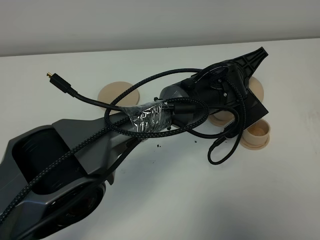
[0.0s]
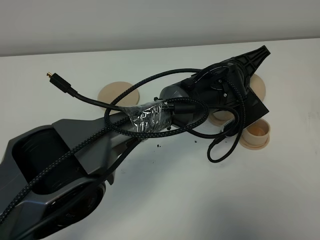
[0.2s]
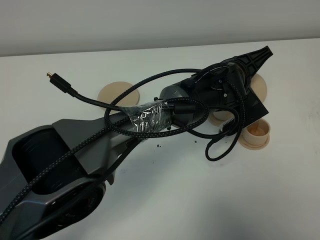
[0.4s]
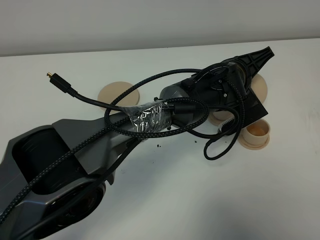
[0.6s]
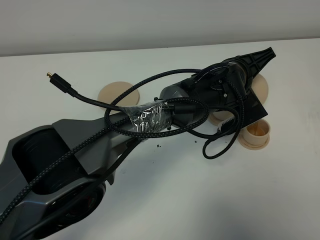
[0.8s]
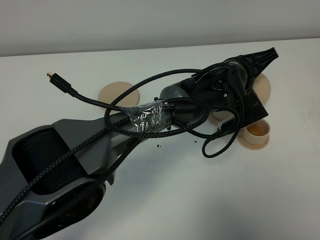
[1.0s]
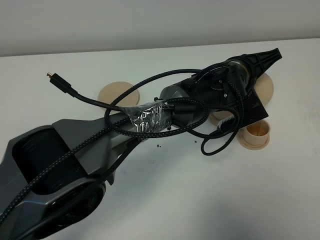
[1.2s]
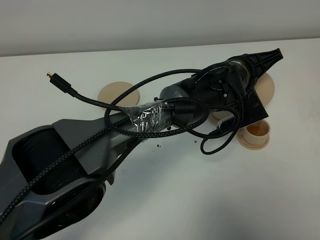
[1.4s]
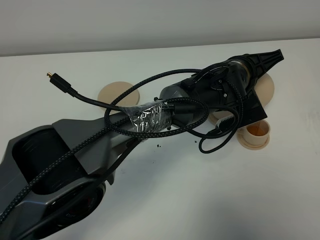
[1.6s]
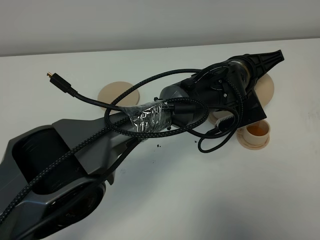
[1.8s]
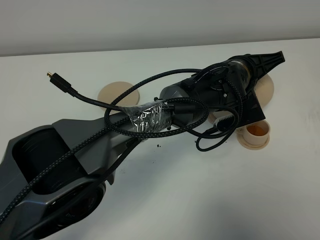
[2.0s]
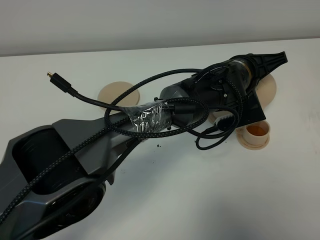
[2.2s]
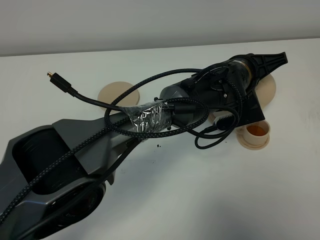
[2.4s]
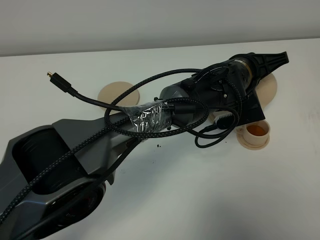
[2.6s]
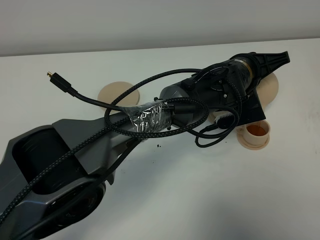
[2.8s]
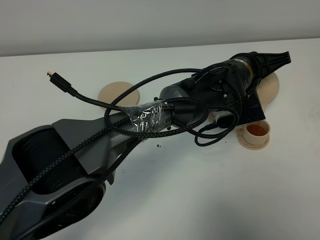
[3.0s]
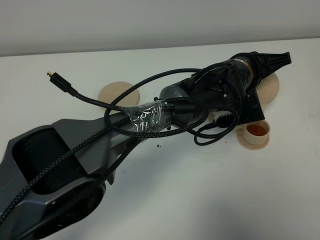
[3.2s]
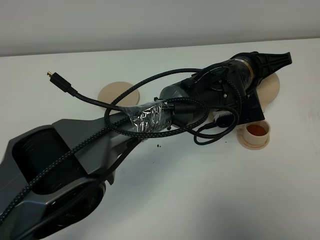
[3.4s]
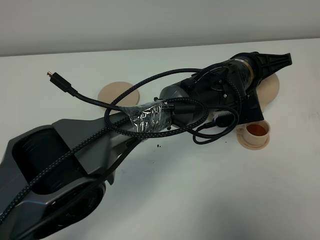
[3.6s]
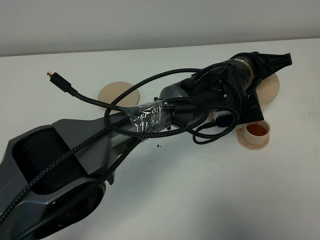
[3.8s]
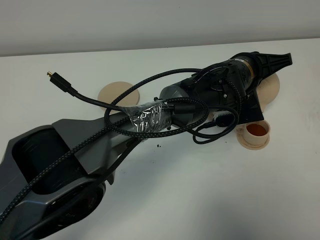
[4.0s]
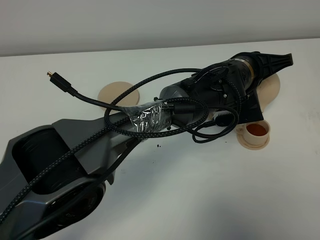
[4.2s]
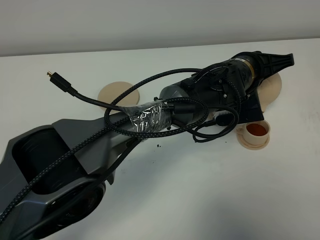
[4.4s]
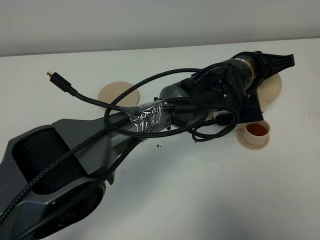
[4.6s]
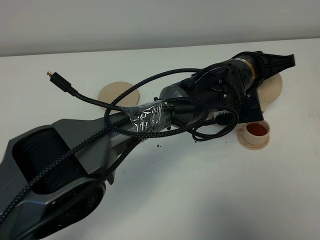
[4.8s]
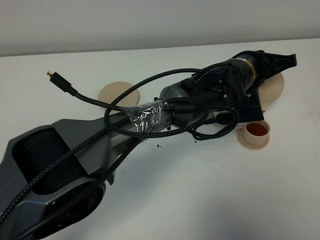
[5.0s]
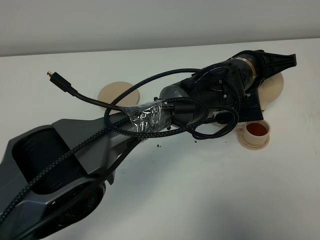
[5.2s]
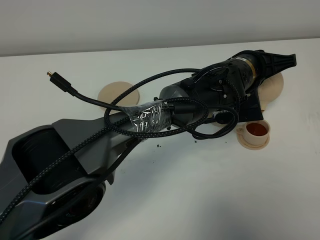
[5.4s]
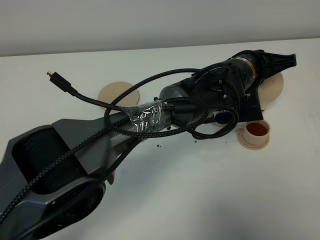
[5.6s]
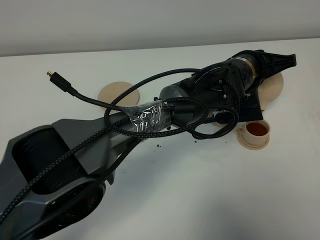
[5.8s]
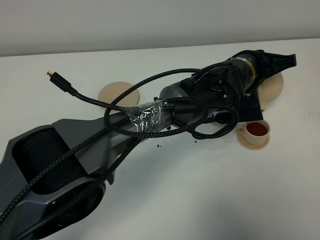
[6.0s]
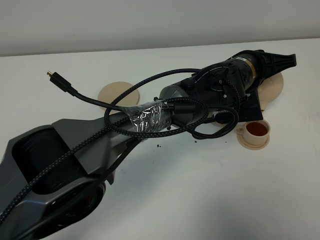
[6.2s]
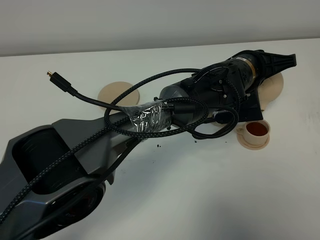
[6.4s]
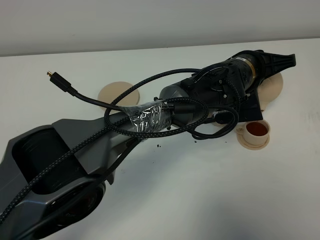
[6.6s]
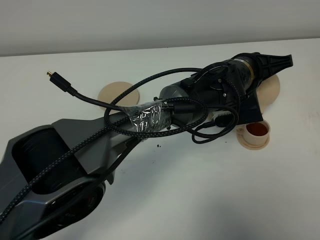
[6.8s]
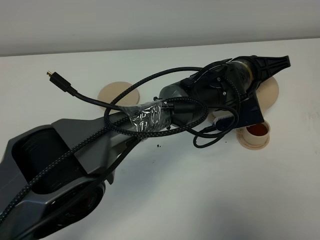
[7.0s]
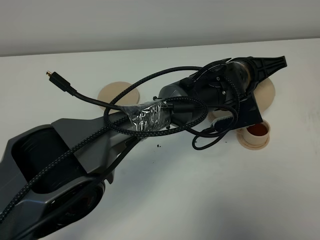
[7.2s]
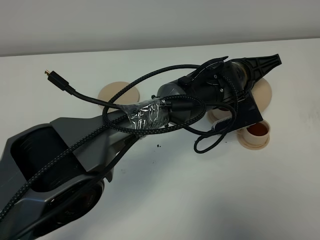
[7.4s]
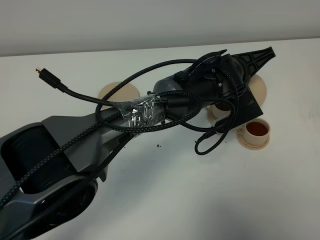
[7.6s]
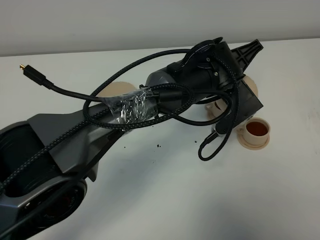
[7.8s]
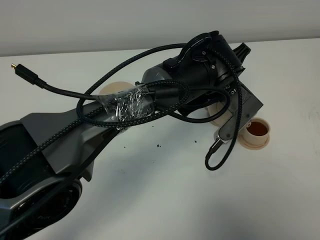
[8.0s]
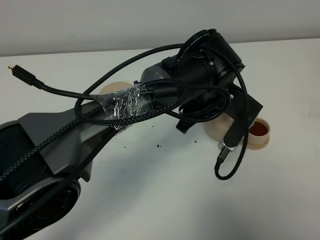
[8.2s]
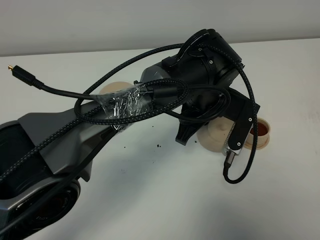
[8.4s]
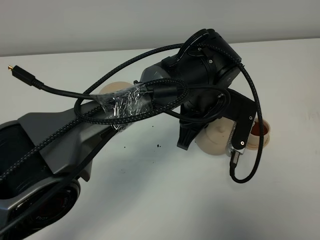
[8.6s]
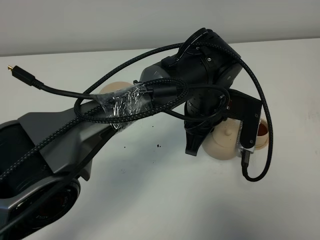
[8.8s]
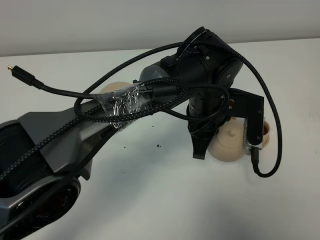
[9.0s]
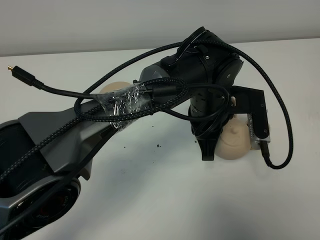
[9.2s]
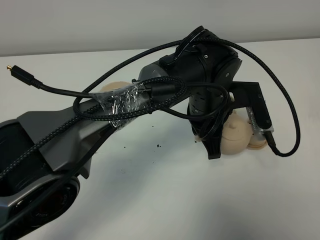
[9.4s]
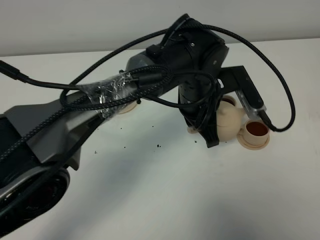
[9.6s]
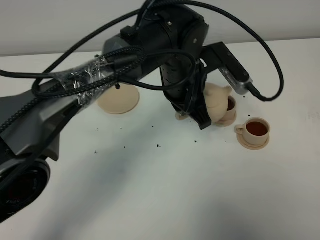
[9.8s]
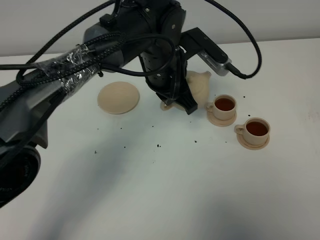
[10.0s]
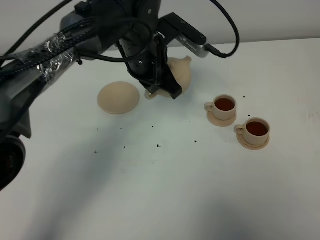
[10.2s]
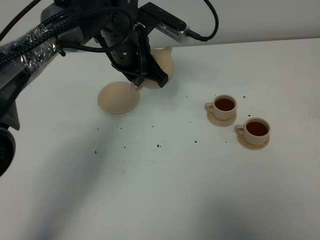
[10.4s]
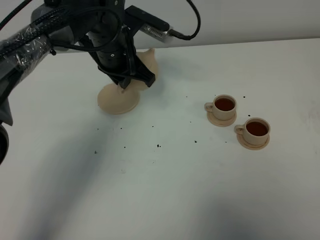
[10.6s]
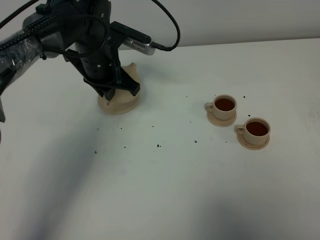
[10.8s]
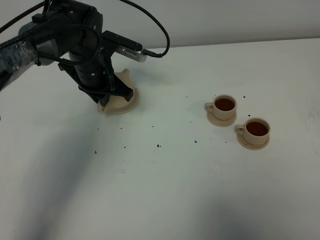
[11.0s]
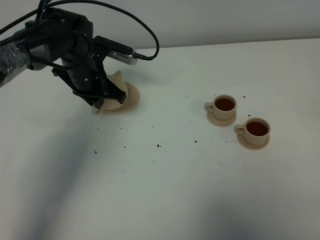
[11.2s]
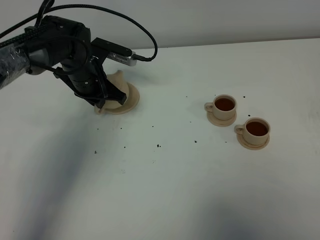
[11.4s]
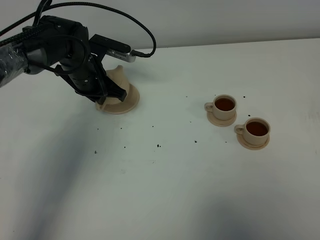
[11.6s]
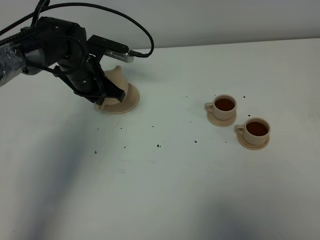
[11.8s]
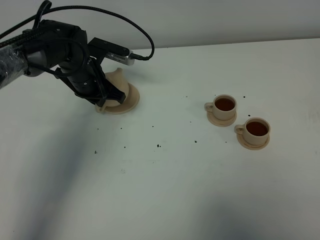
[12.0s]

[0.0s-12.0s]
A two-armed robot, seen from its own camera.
Task of the whole recording: grasp the brown teapot and pour the tea into the two brown teacups one by one, put the brown teapot back in its original place.
Step, 0.0s to 8.0s: Pour tea into the teacup with the left gripper.
0.0s to 1.6s: There are only small adjustments of the grippers.
1.6s to 3.0s: The grippers make only small movements.
3.0s to 4.4s: Both grippers stay put.
4.4s to 6.0s: The two grippers keep their place.
7.6s to 9.0s: The left gripper shifts by about 5 cm.
9.0s to 10.4s: The left gripper shifts some 20 cm to the left, forward and upward.
10.4s to 12.0s: The left gripper shifts some 15 cm downward and to the left.

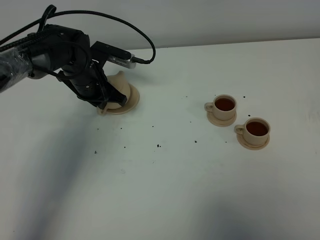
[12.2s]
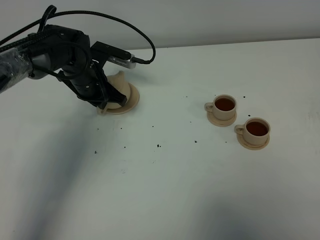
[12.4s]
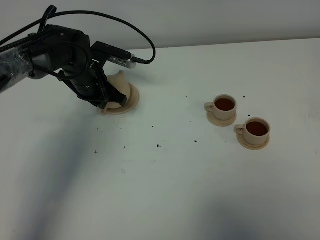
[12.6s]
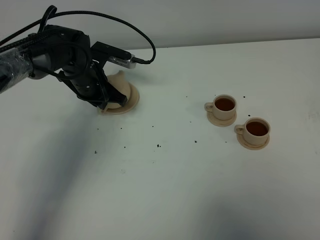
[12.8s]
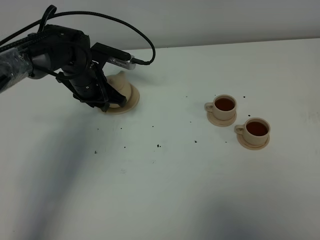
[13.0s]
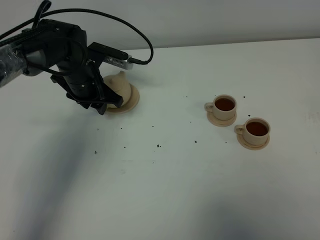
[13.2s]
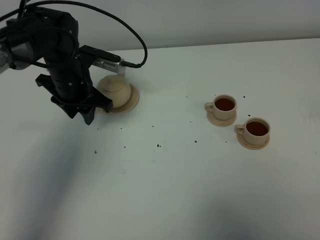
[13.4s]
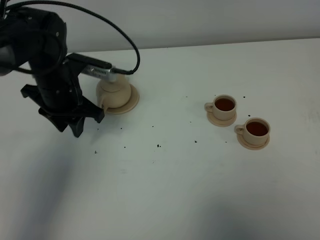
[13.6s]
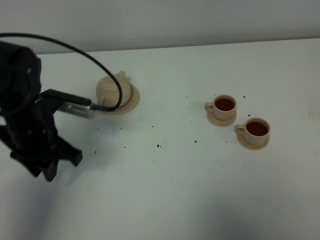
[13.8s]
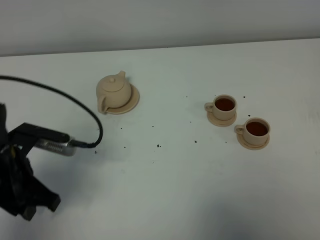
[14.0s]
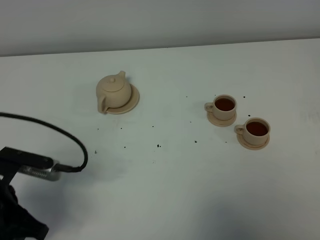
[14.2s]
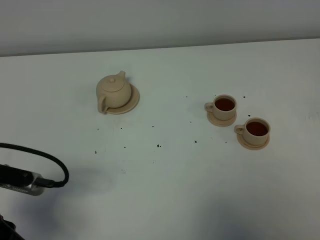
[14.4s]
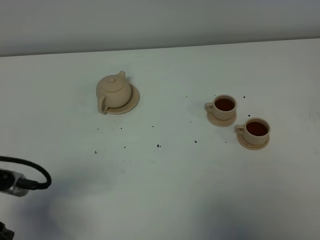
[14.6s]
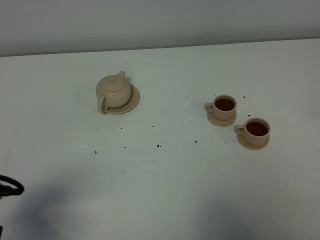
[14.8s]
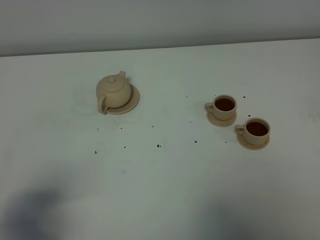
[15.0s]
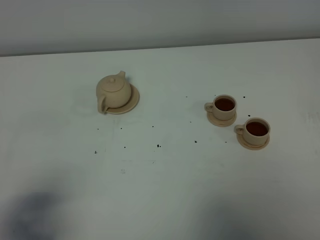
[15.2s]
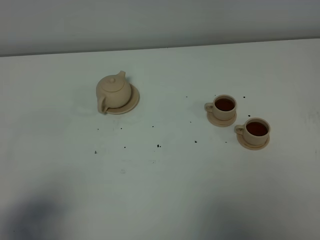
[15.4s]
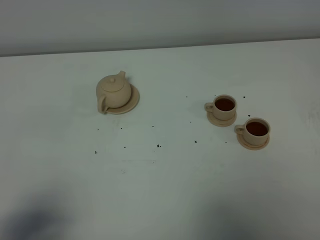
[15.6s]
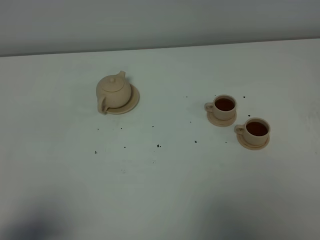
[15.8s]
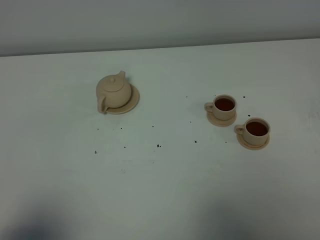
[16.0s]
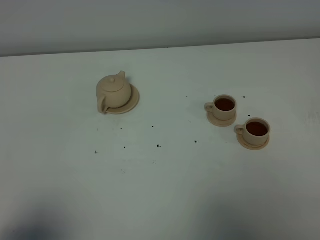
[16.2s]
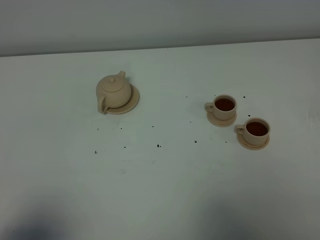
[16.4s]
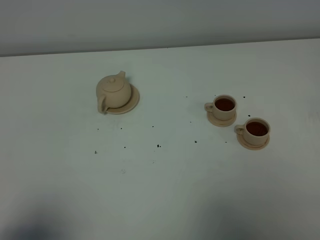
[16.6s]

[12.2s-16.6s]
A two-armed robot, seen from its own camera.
Task of the whole recording: grasp the brown teapot and pour the tea into the two brown teacups one by one, put the brown teapot back in its original place.
12.2s to 13.6s: The left gripper shifts approximately 10 cm backward and upward, and opens.
13.6s to 15.2s: The left gripper travels backward by approximately 30 cm, and closes.
15.2s to 16.6s: The left gripper heads backward, covering about 5 cm.

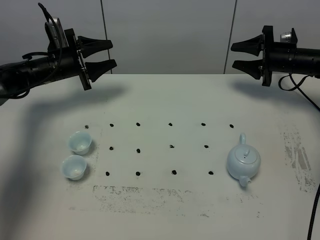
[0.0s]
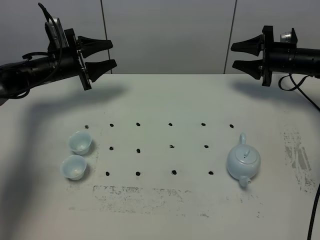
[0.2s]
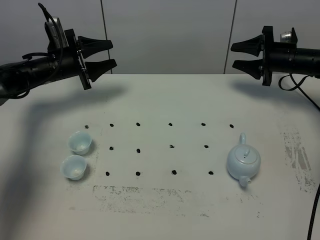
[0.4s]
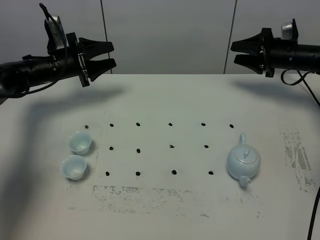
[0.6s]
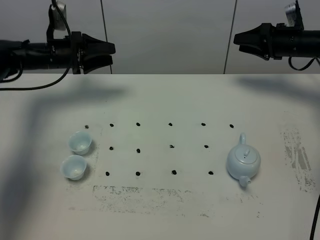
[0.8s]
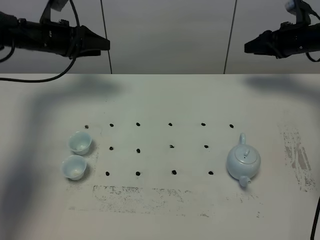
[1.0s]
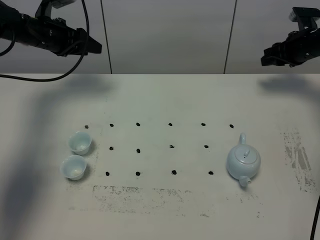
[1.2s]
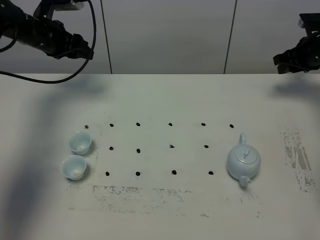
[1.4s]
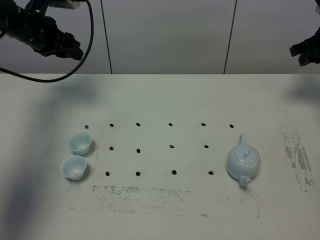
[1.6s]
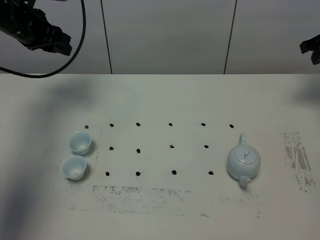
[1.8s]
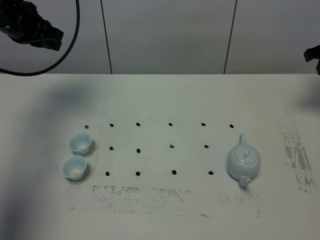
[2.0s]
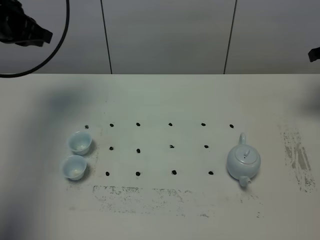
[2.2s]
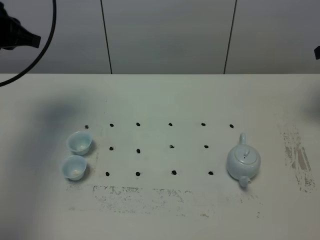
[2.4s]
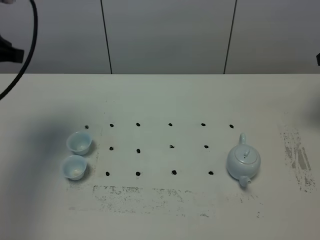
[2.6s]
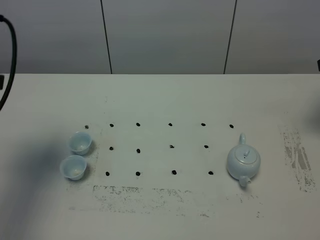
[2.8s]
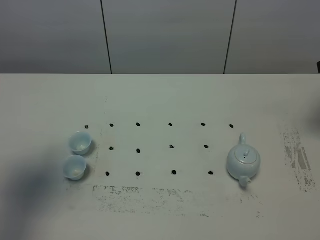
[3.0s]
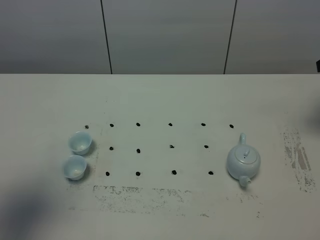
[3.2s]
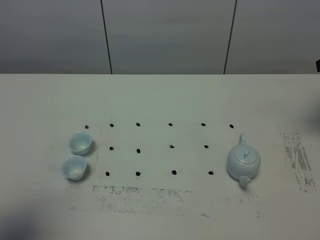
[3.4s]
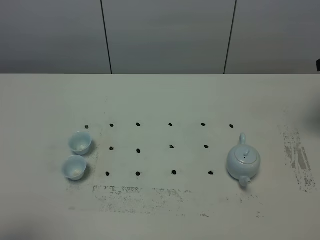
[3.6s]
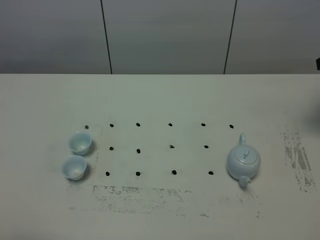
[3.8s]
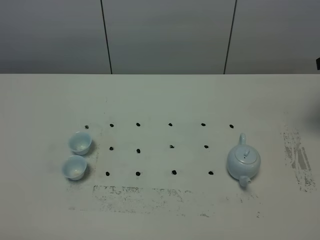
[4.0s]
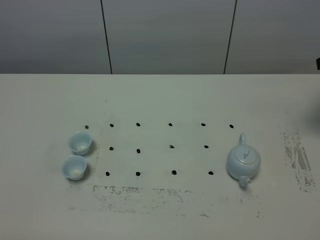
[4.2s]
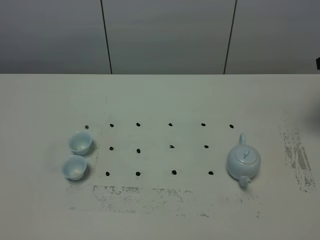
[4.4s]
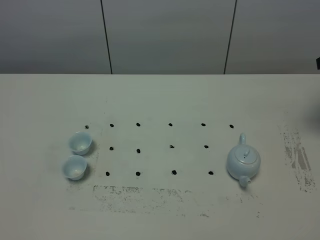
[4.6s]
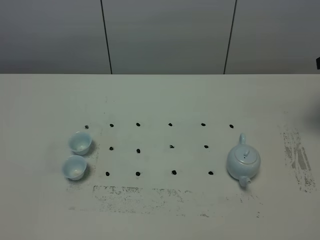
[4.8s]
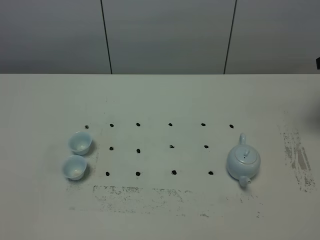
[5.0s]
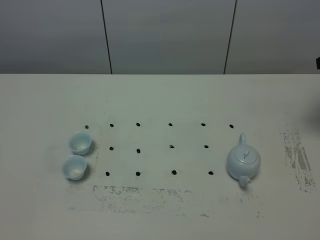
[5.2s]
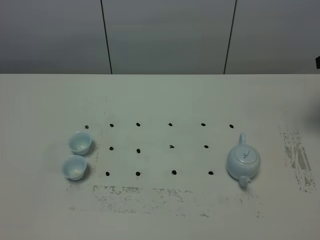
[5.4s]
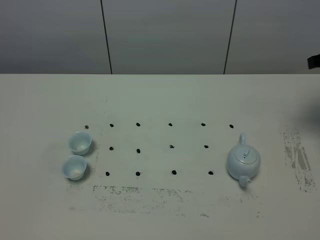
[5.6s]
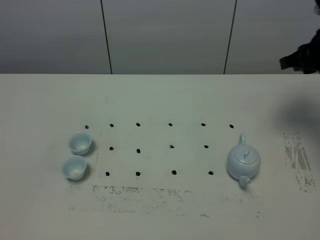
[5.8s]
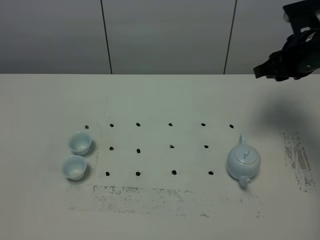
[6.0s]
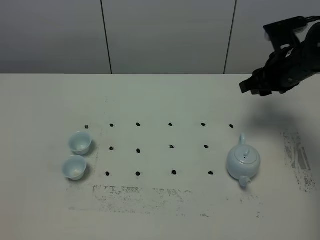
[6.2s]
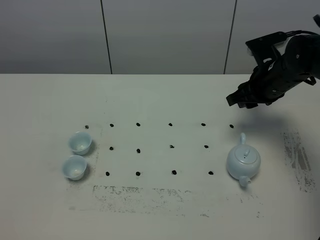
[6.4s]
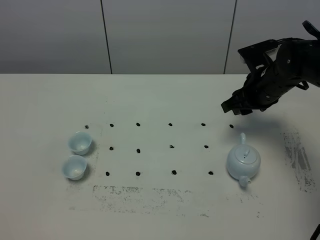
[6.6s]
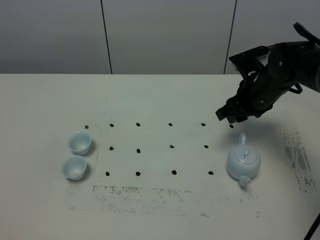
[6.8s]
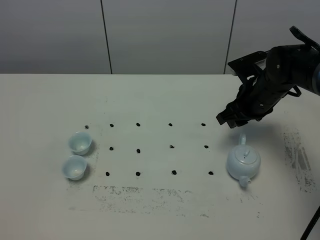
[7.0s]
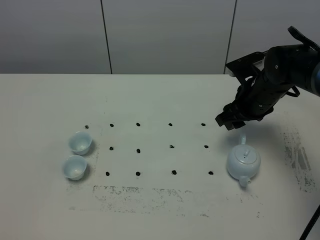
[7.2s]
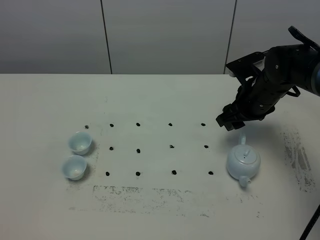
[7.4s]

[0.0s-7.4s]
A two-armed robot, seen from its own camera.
Task of the whole recording: grasp the blue porcelain teapot and pour the tea into the two blue porcelain teacups one by one, put the blue porcelain teapot back in its original place.
0.0s to 1.4s: The left gripper moves upward, about 10 cm. The right gripper is displaced to the right by approximately 5 cm.
1.4s to 3.0s: The right gripper travels backward and upward by approximately 15 cm; the left gripper is displaced backward by some 35 cm, and closes.
3.0s to 4.4s: The left gripper moves backward and downward, about 20 cm.
4.4s to 6.0s: The right gripper shifts about 10 cm to the left.
6.0s to 7.4s: The right gripper shifts some 10 cm downward and to the left, and opens.
